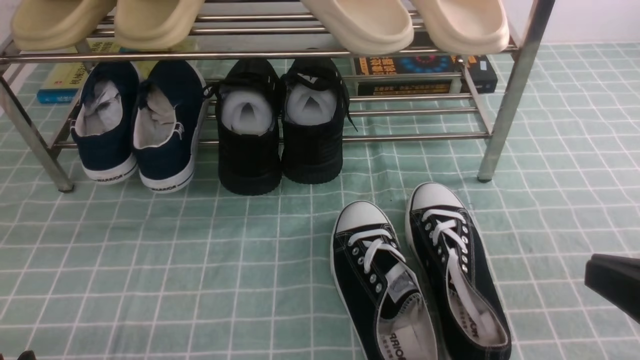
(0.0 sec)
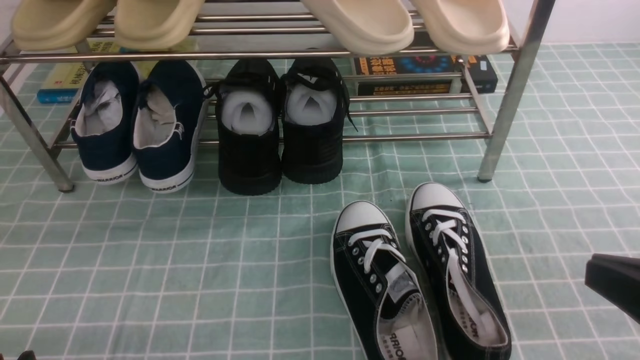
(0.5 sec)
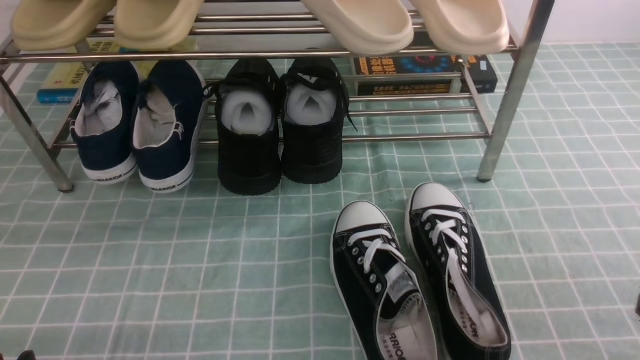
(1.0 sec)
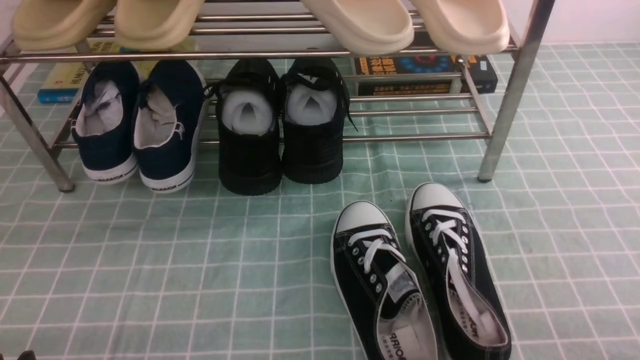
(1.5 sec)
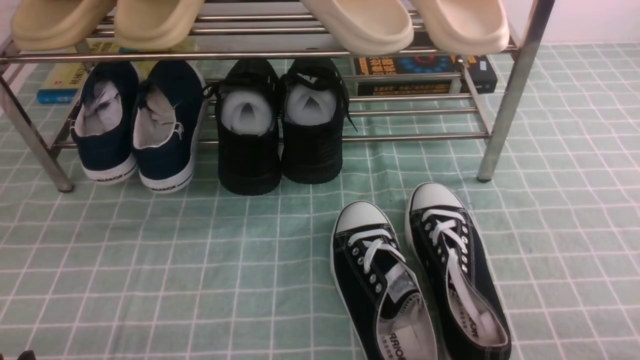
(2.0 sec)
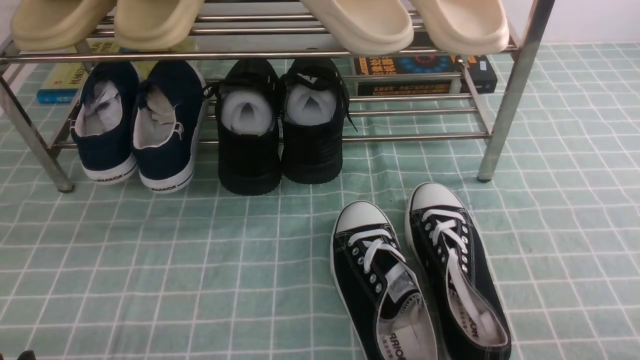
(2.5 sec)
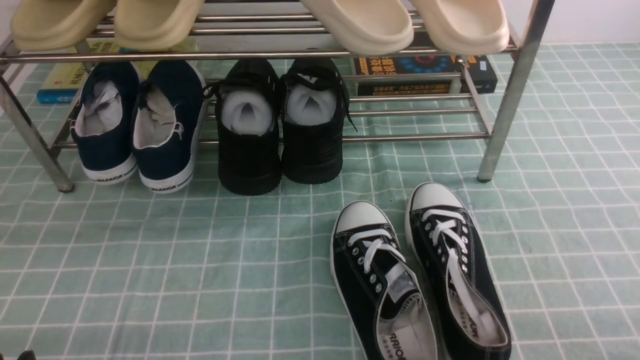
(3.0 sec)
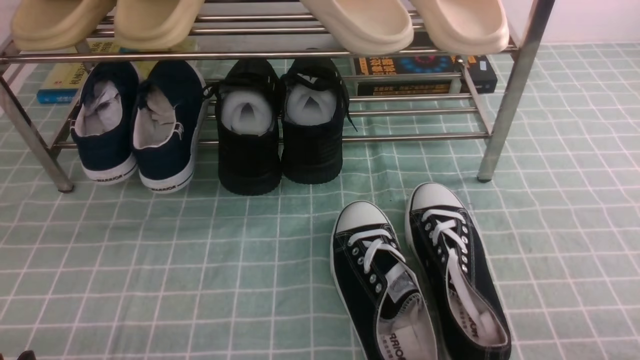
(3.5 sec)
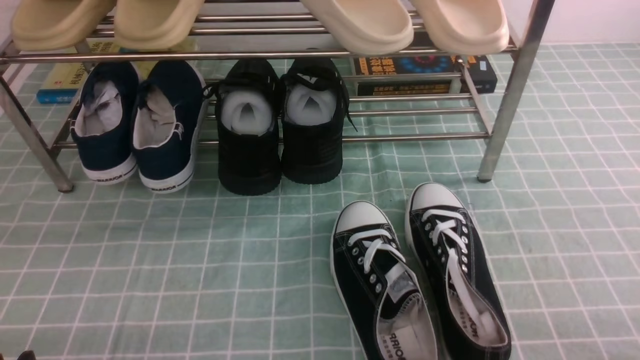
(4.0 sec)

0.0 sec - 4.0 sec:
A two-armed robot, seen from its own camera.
0.0 sec - 2.0 sec: The right gripper shifts roughly 15 cm downward and to the right.
2.0 sec - 4.0 sec: Neither gripper changes place.

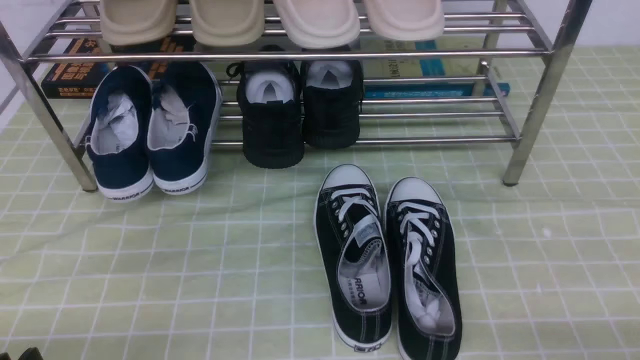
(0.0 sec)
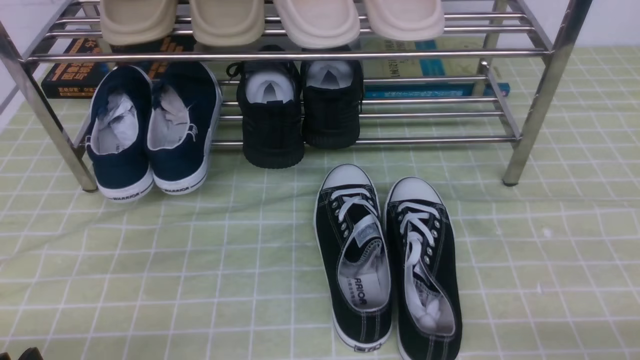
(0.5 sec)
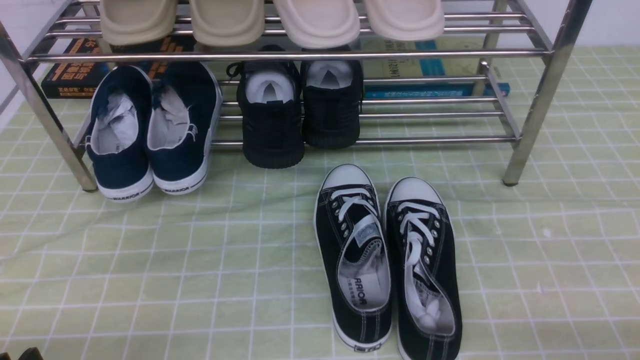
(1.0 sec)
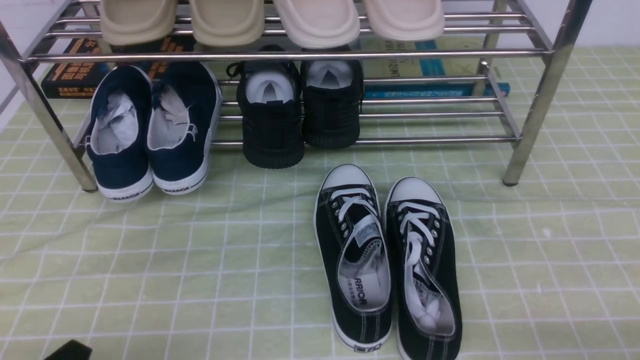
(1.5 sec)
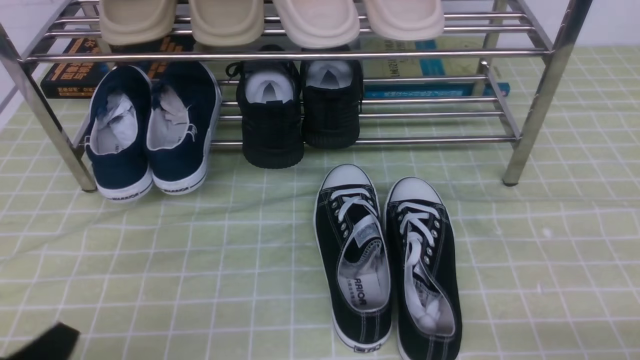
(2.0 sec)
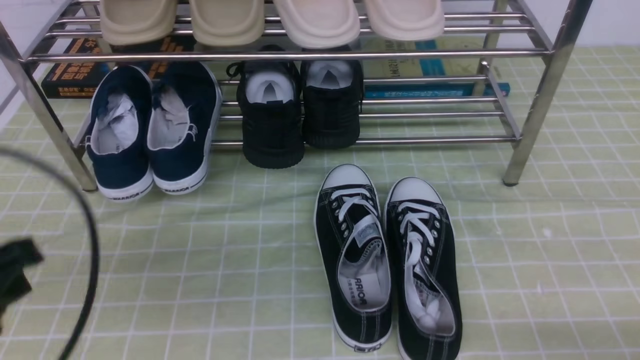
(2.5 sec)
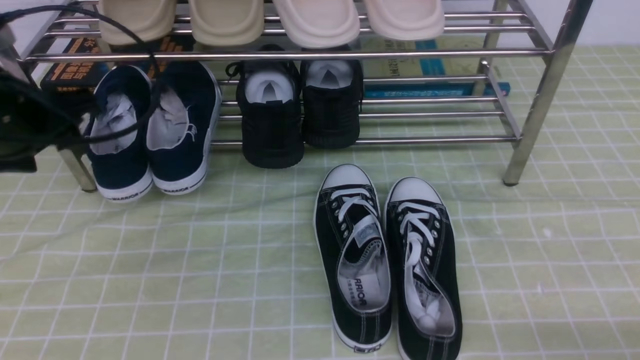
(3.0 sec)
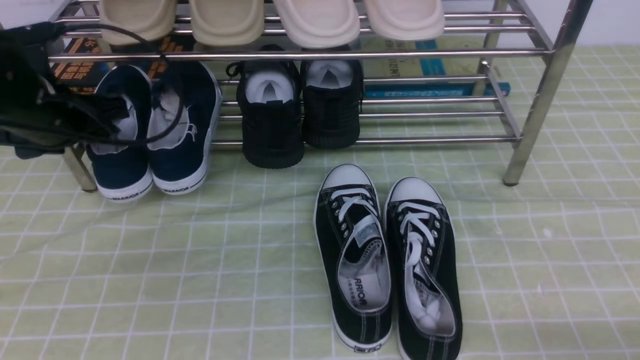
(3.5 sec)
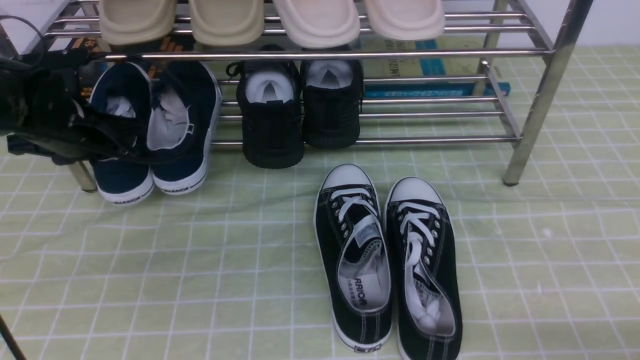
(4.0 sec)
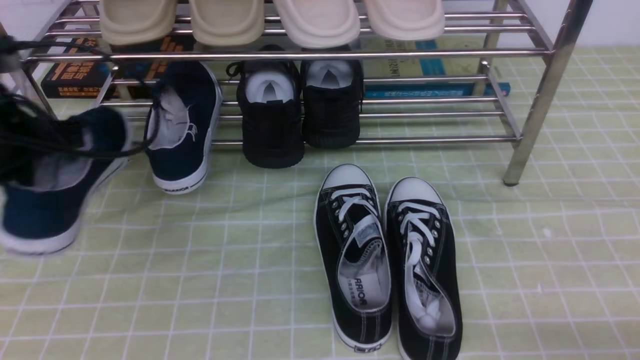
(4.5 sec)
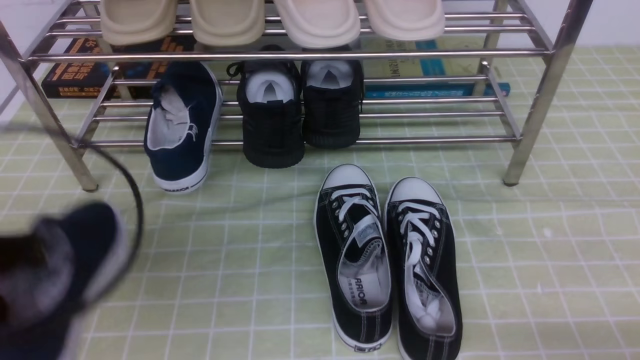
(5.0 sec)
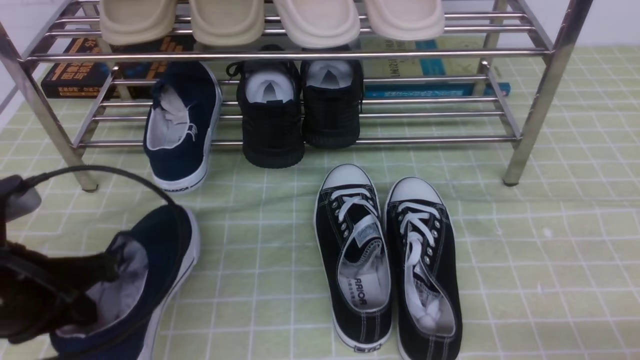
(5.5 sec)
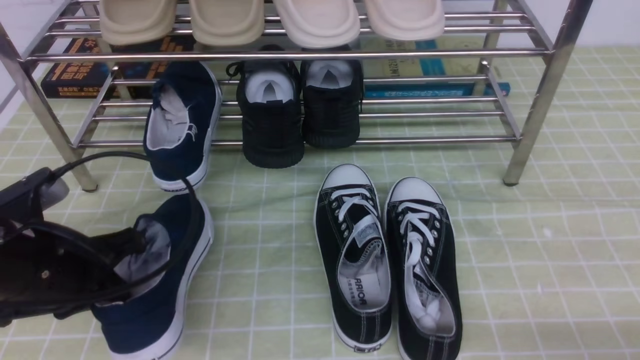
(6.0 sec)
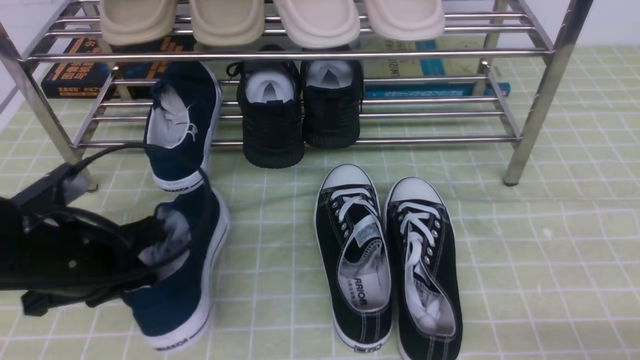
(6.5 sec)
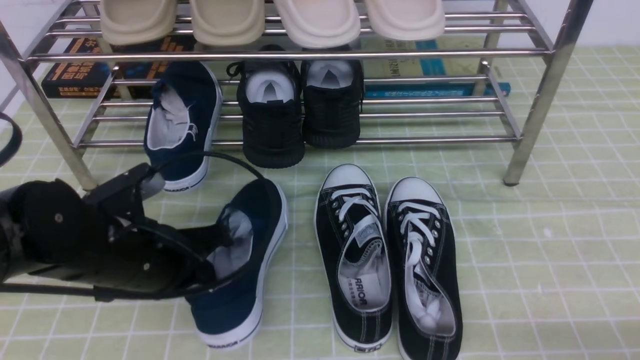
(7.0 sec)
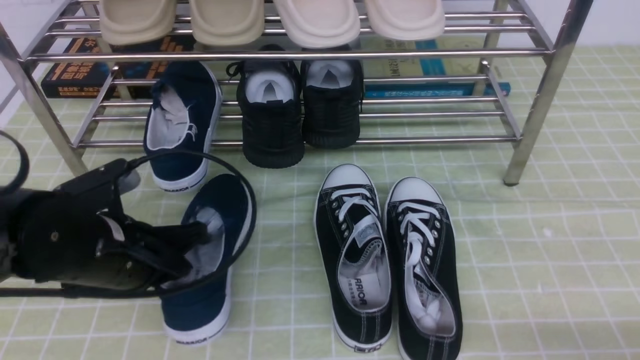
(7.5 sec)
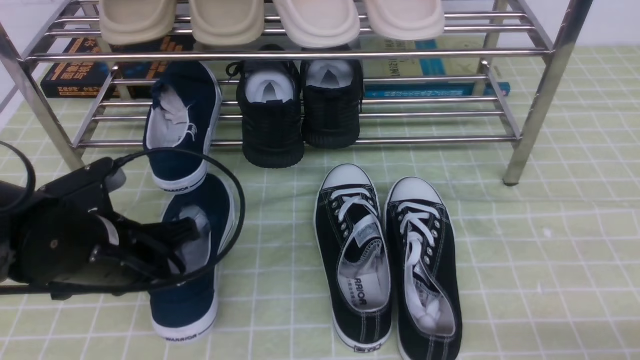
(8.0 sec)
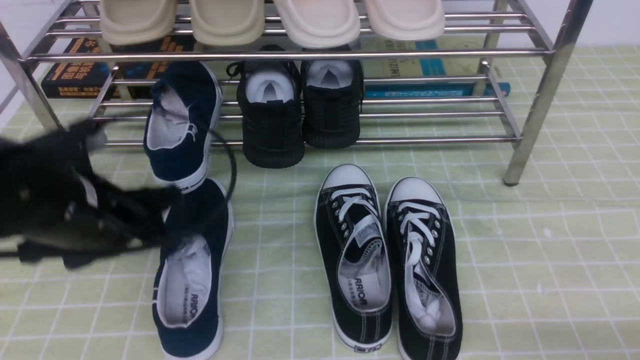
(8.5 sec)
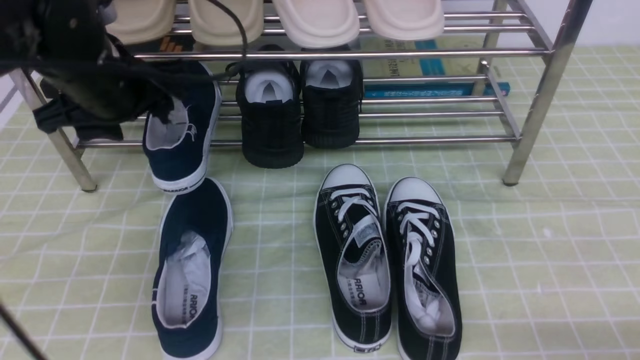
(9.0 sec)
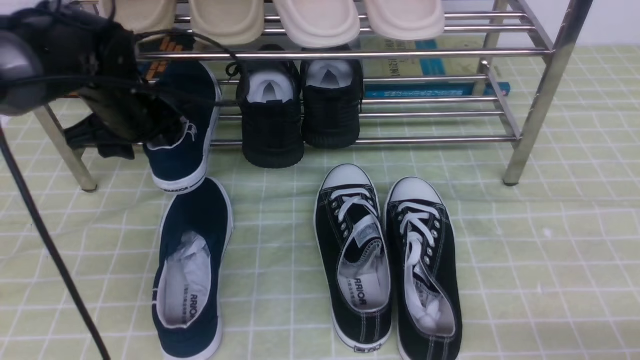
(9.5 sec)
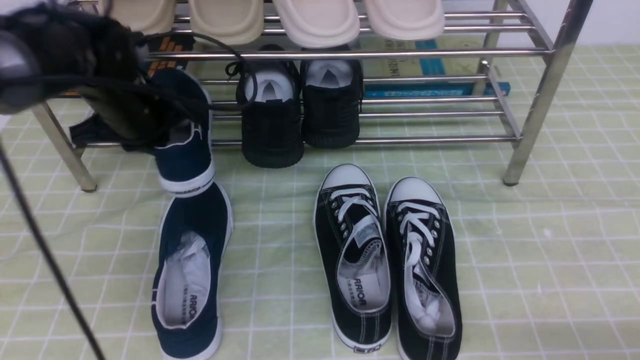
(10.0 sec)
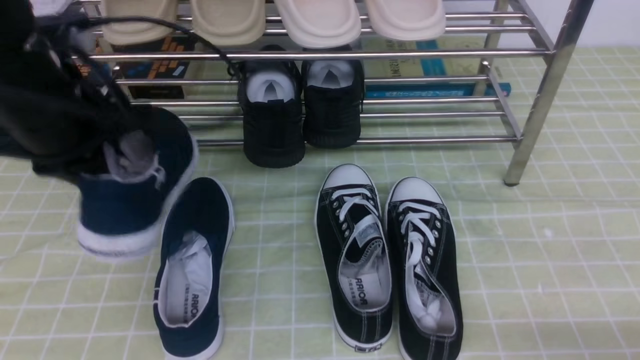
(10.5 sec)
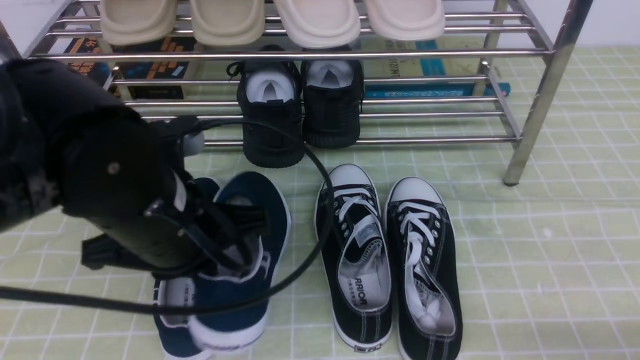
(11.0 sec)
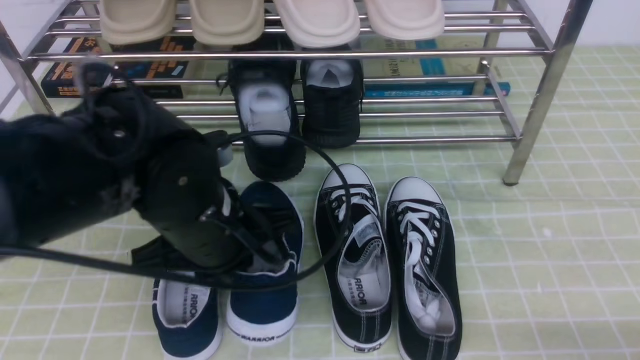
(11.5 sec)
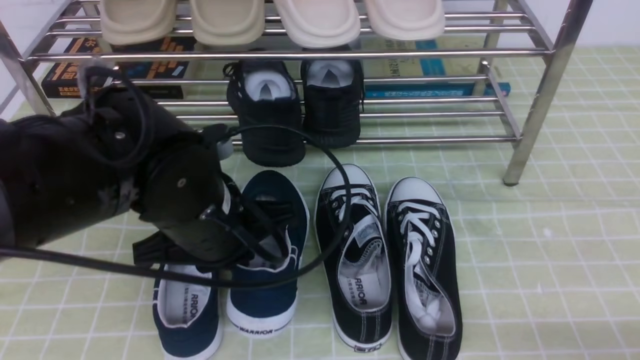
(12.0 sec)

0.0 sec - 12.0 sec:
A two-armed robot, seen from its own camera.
Step, 0.0 sec - 4.0 sec: use the left arm to clamp a shoe on the left side of the shoe rack.
Step, 4.5 sec - 8.5 sec: Use your left arm to remove the clamped shoe from the shoe rack and put it down.
Step, 9.0 sec - 9.5 sec: use the left arm to clamp a shoe on the left side of the shoe rack.
2.0 sec - 4.0 sec: The left gripper goes roughly 35 cm forward, and opens, then closes again.
4.0 sec - 6.0 sec: The left gripper goes roughly 15 cm backward, and closes.
6.0 sec - 8.0 sec: The left gripper ends up some 5 cm from where it was.
8.0 sec - 10.0 sec: The left gripper heads forward and upward, covering roughly 15 cm, and opens and closes again.
10.0 sec - 12.0 sec: The left gripper heads backward and to the right, covering about 20 cm.

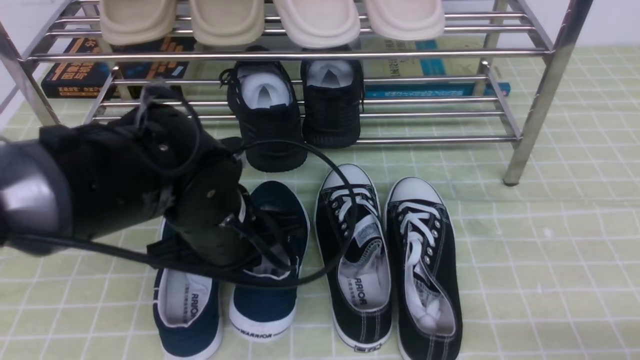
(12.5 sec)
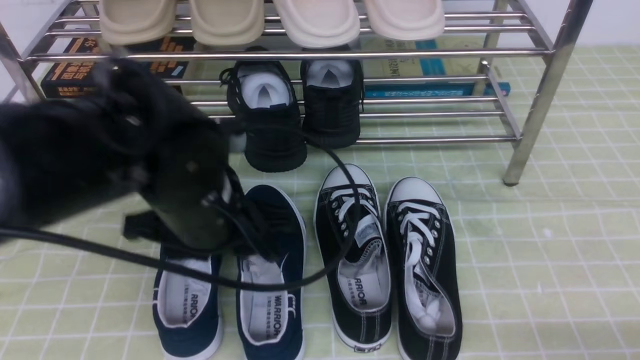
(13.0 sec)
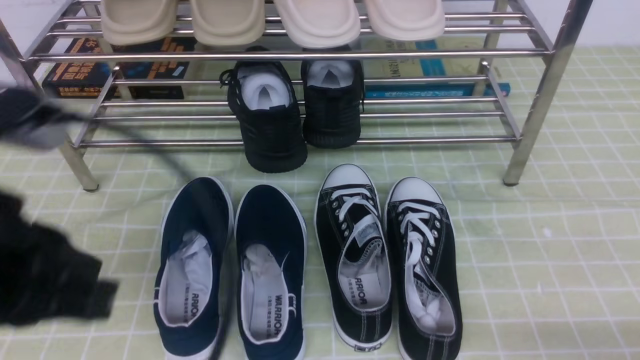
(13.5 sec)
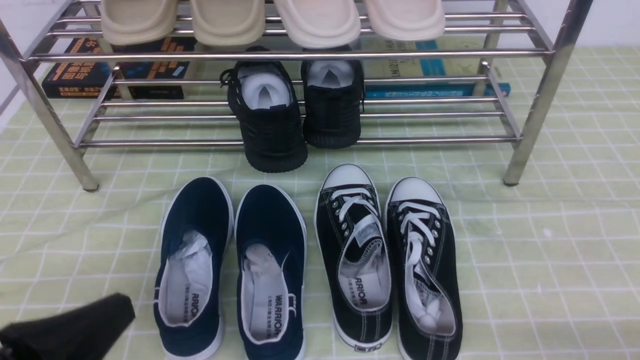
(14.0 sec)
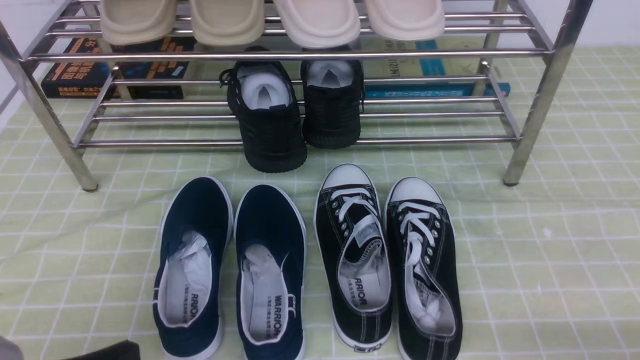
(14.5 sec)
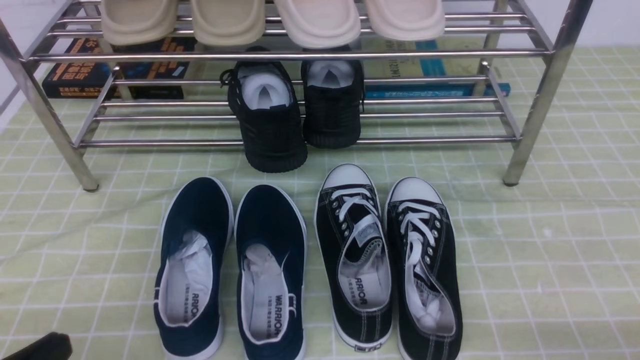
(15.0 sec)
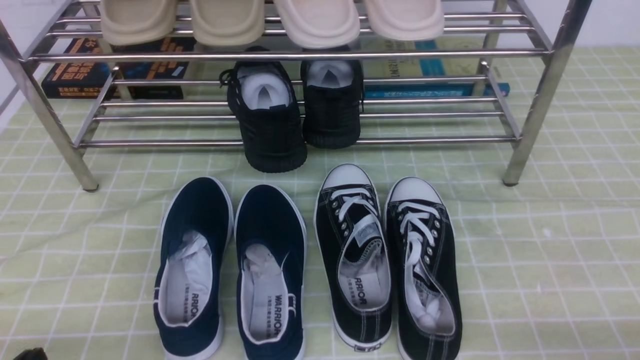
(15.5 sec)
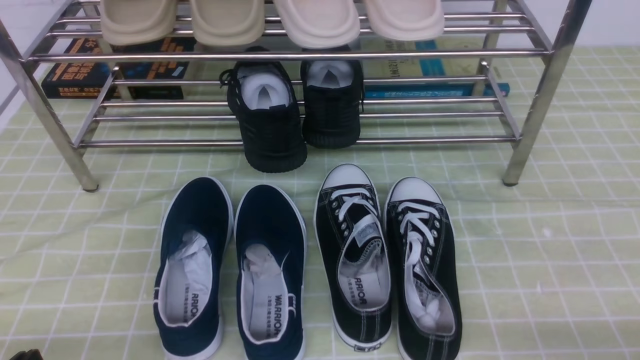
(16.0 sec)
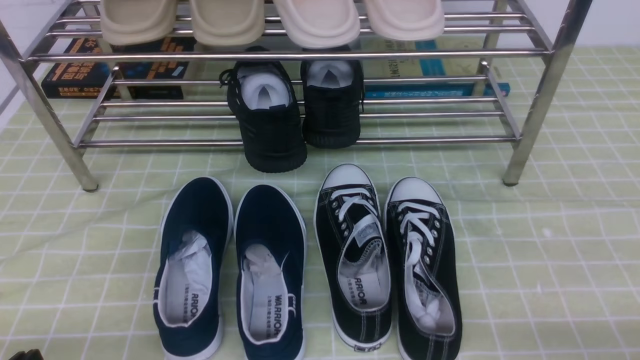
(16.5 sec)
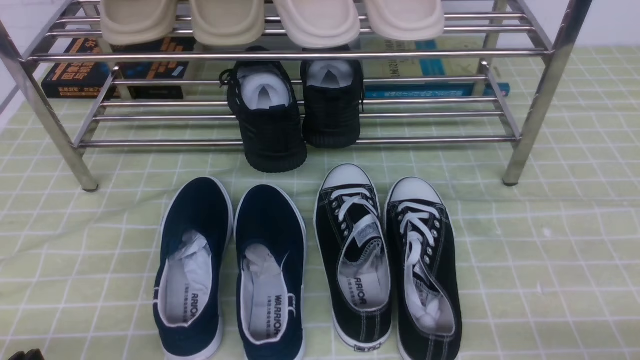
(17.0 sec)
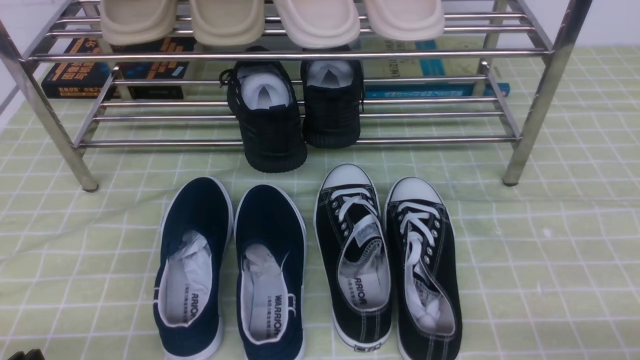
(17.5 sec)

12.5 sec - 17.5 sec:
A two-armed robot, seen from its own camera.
12.5 sec - 15.0 sec: The left gripper travels backward and to the left by approximately 25 cm, and opens and closes again.
